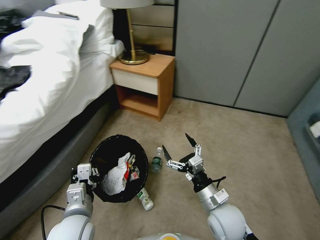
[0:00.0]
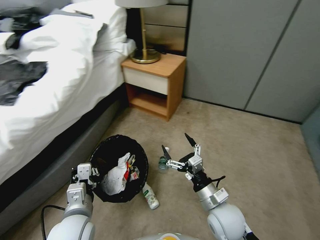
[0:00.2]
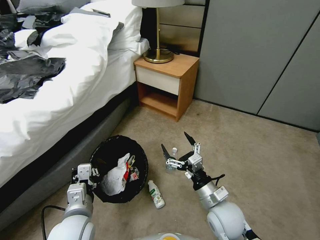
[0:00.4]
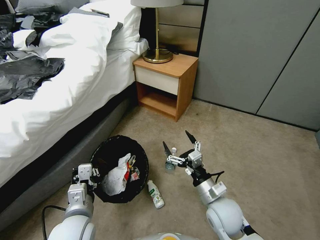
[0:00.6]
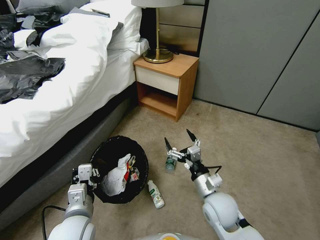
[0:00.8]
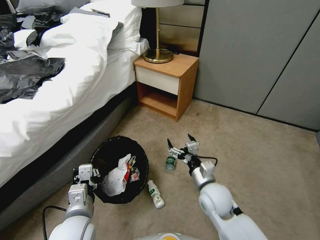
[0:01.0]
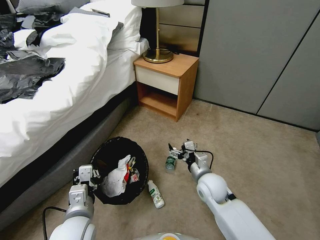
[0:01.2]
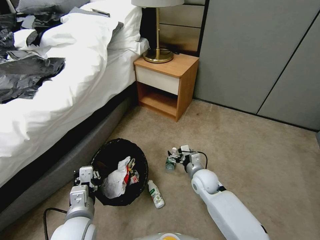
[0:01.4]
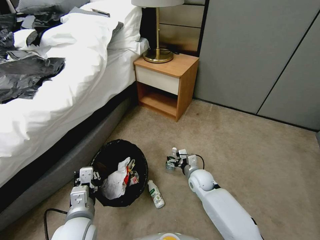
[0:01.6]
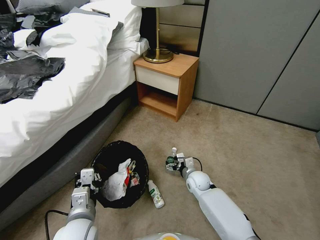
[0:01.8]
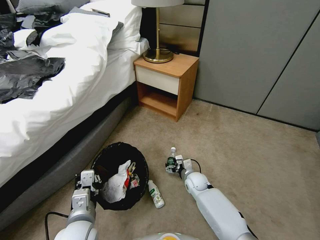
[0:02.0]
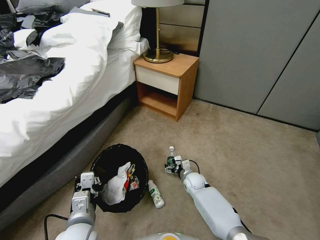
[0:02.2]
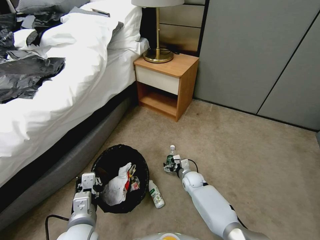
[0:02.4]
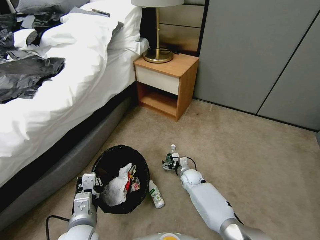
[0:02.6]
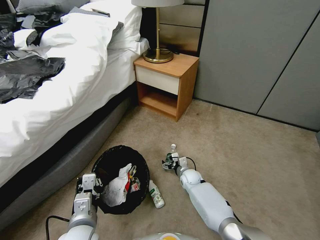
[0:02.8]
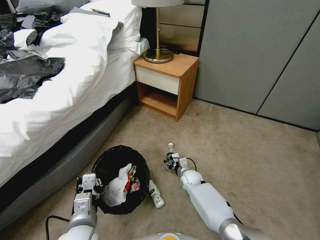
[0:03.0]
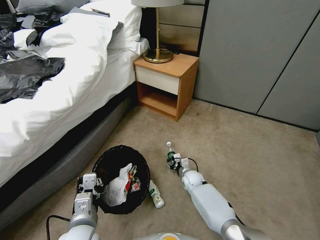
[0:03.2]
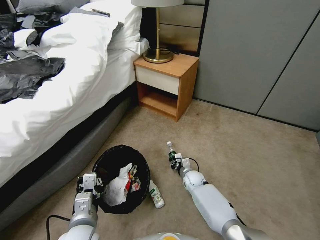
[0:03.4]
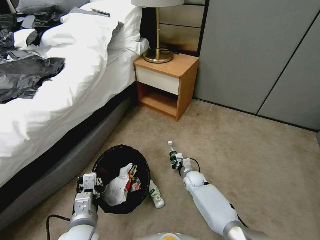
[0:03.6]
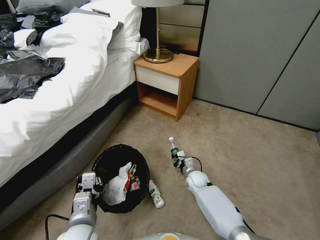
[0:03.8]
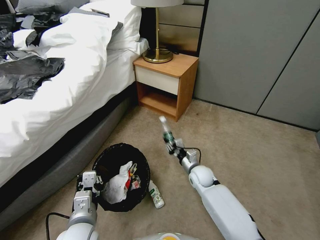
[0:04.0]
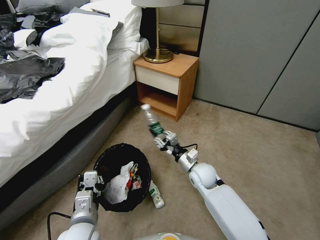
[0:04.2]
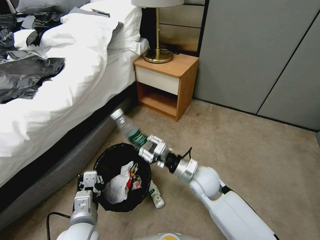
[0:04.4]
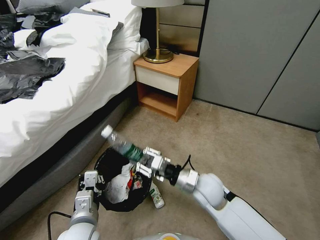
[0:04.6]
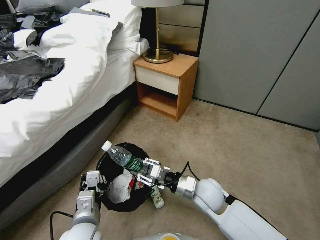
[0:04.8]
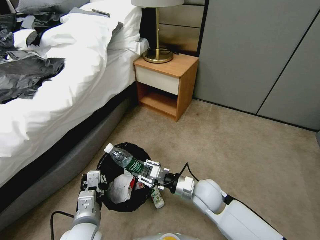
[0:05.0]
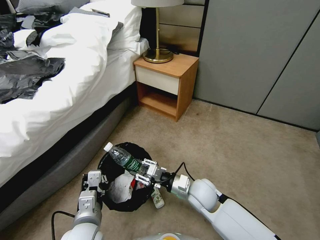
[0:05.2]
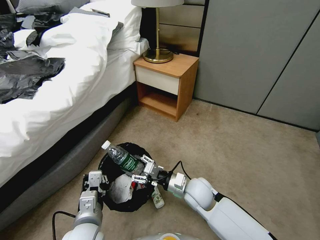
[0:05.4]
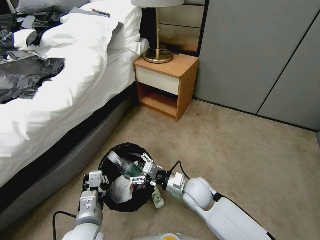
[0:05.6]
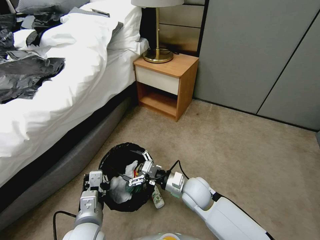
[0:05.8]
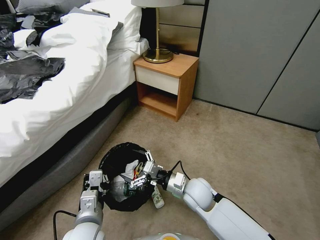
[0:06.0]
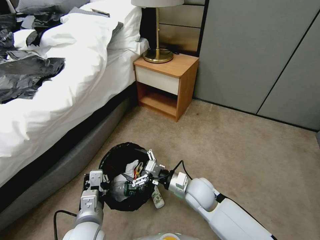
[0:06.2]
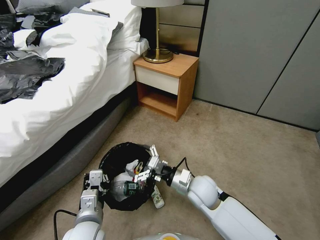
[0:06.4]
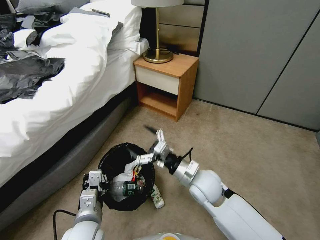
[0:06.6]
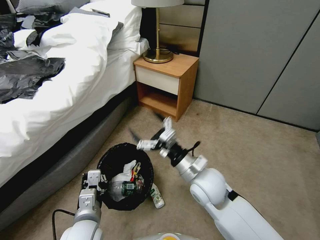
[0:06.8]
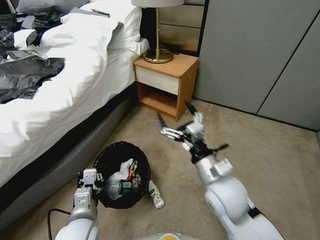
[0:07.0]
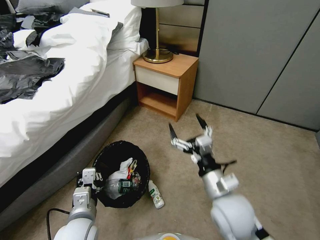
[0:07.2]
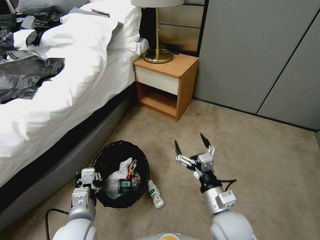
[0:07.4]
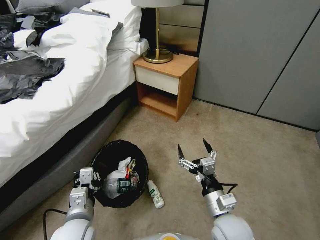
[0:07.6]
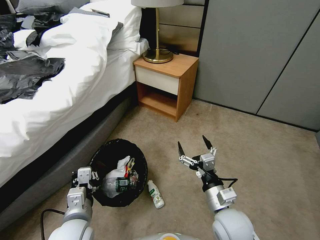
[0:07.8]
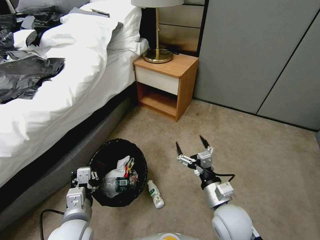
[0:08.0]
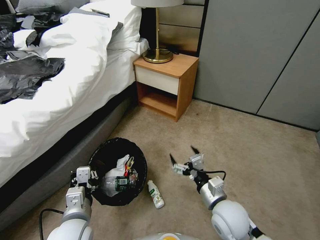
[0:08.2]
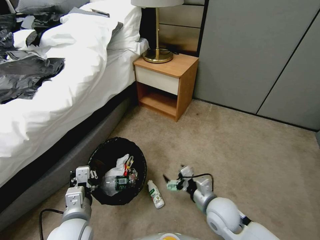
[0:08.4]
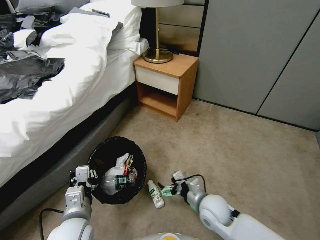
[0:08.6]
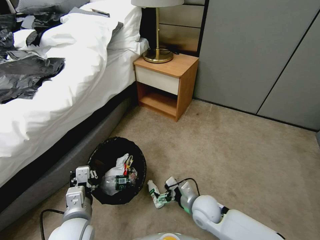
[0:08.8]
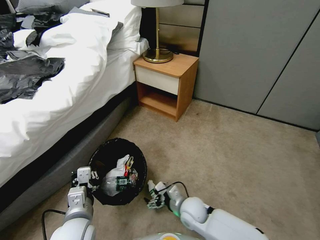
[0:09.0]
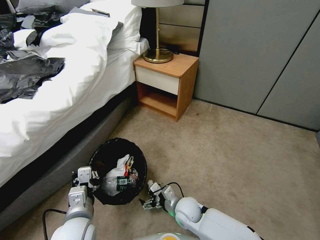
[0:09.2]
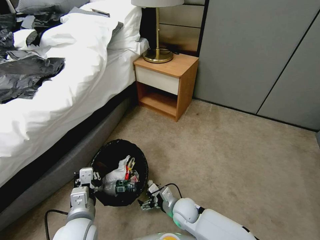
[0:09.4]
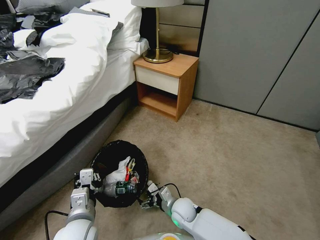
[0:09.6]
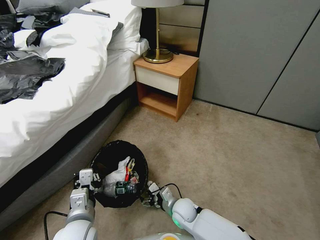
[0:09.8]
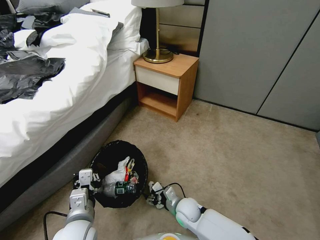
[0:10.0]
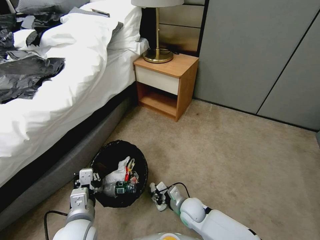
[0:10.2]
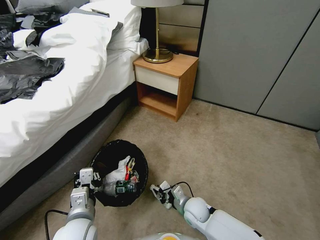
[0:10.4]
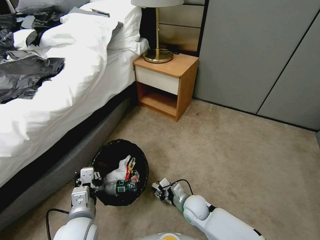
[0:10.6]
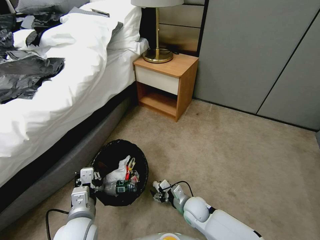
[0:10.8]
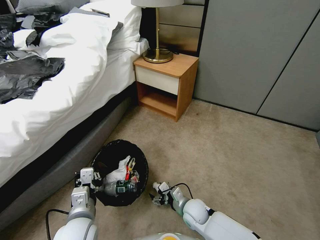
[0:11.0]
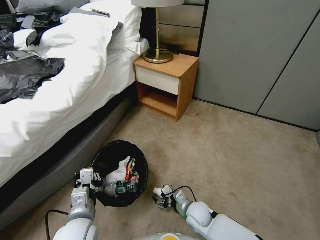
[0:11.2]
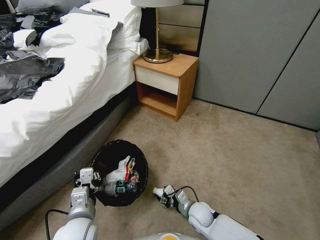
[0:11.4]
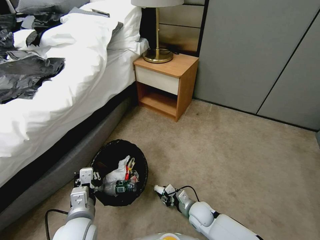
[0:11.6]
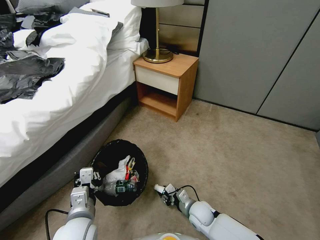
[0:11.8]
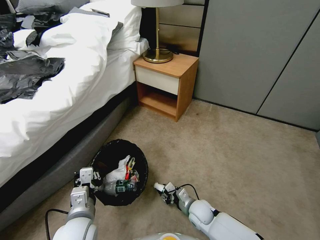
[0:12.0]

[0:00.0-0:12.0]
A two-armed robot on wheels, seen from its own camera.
Task of the whole recording: Pick up the trash bin, then pick up the garbage from the floor and place it into the trash bin.
0:00.0 to 0:01.6: The right gripper heads forward and downward, covering approximately 20 cm.
0:01.6 to 0:03.0: The right gripper is displaced downward by approximately 10 cm.
0:03.0 to 0:04.4: The right gripper travels upward by about 20 cm, and closes its fingers.
0:04.4 to 0:06.0: The right gripper ends up approximately 5 cm from where it was, and opens up.
0:06.0 to 0:07.6: The right gripper is displaced backward and to the right by roughly 15 cm, and travels upward and back again, some 15 cm each way.
0:07.6 to 0:09.0: The right gripper heads downward, forward and to the left, covering about 15 cm.
0:09.0 to 0:10.4: The right gripper closes up.
0:10.4 to 0:12.0: The right gripper opens and closes again.

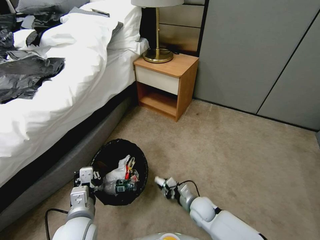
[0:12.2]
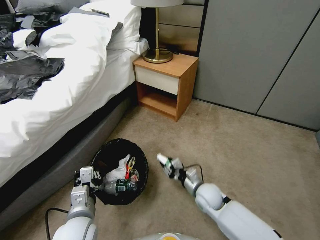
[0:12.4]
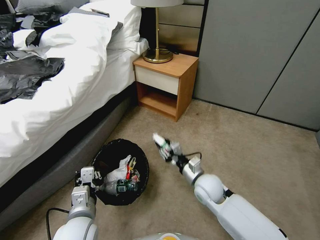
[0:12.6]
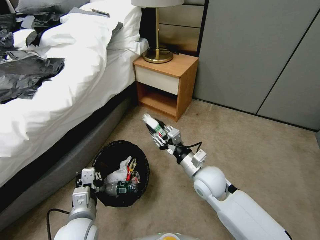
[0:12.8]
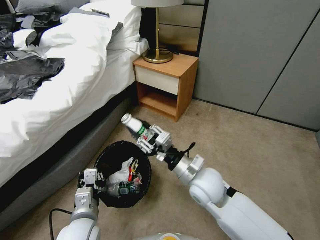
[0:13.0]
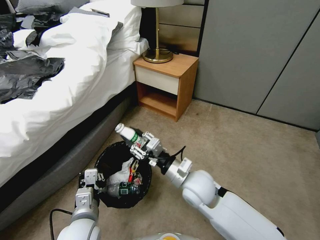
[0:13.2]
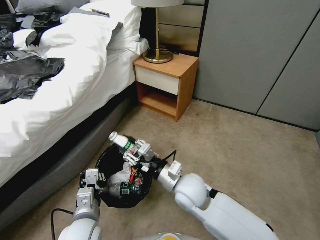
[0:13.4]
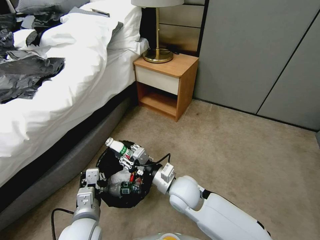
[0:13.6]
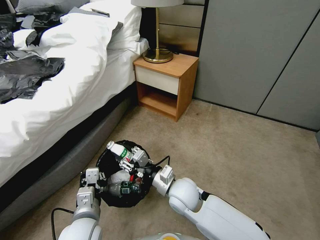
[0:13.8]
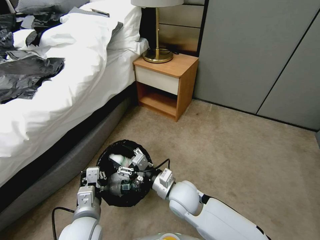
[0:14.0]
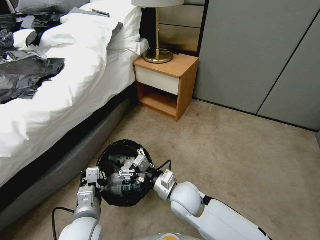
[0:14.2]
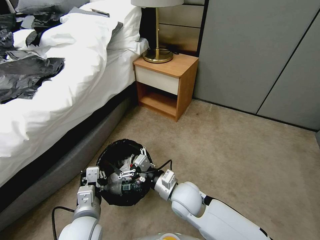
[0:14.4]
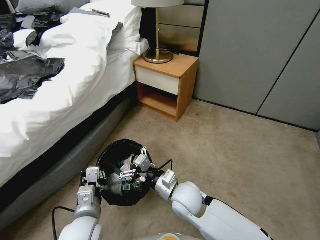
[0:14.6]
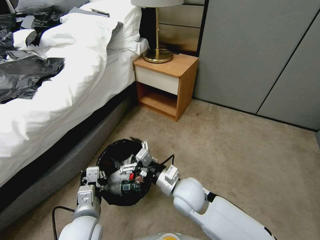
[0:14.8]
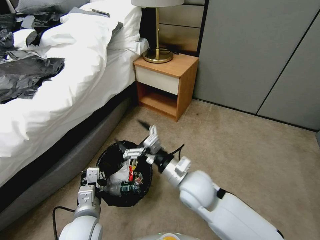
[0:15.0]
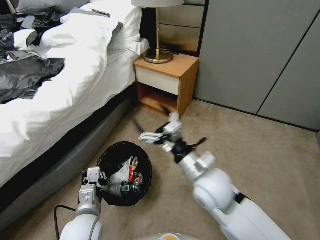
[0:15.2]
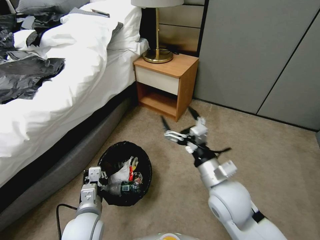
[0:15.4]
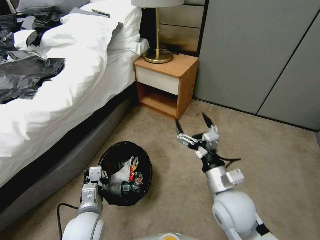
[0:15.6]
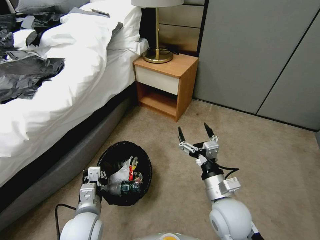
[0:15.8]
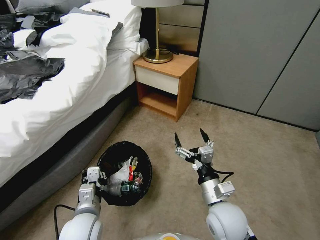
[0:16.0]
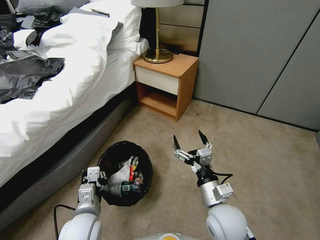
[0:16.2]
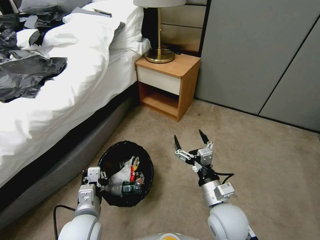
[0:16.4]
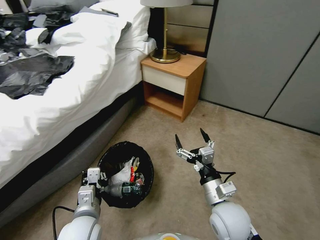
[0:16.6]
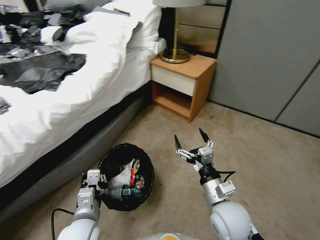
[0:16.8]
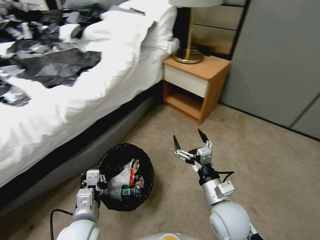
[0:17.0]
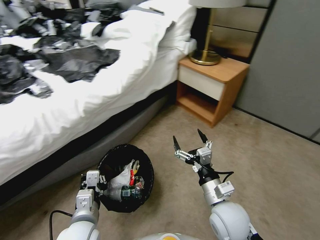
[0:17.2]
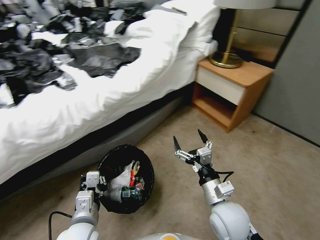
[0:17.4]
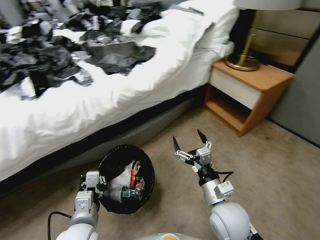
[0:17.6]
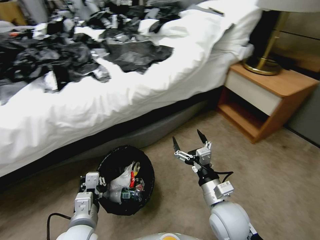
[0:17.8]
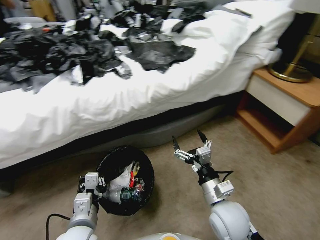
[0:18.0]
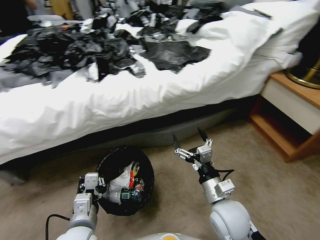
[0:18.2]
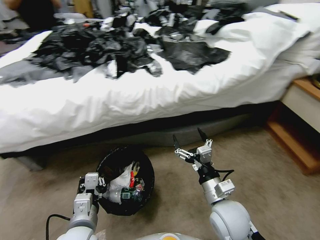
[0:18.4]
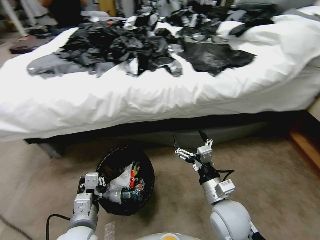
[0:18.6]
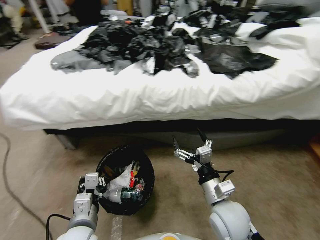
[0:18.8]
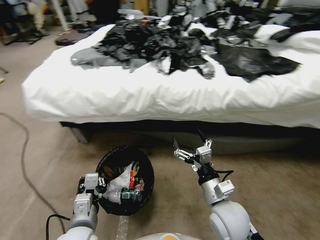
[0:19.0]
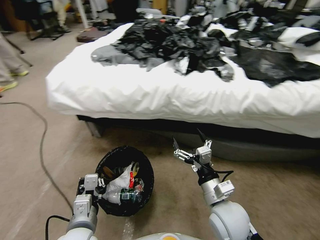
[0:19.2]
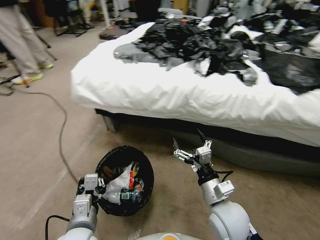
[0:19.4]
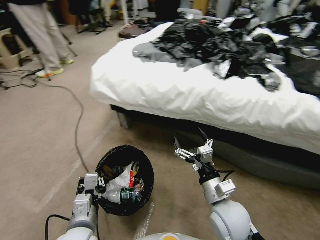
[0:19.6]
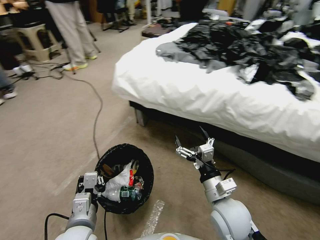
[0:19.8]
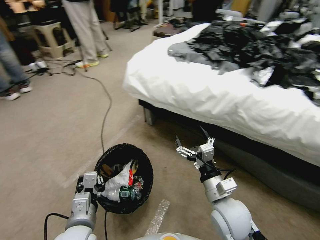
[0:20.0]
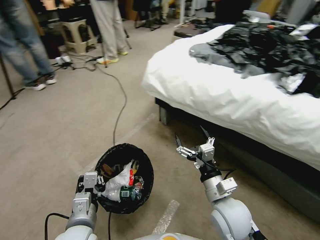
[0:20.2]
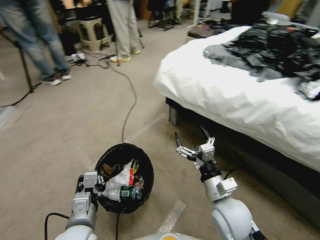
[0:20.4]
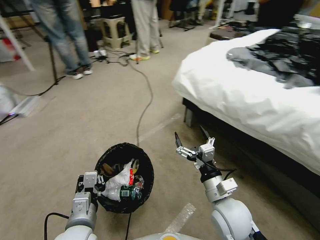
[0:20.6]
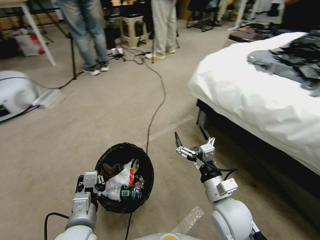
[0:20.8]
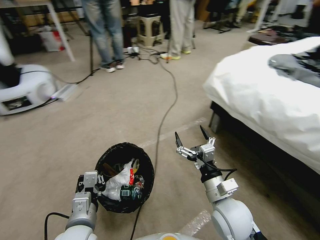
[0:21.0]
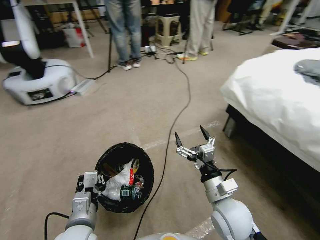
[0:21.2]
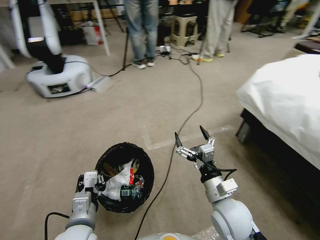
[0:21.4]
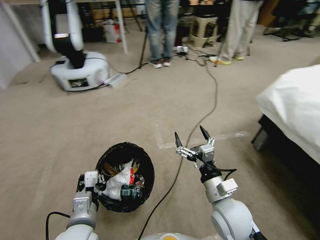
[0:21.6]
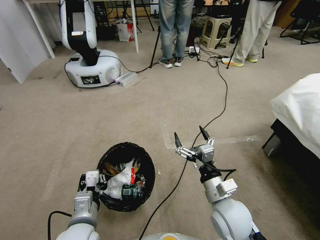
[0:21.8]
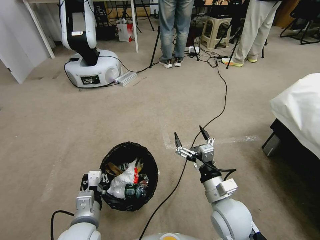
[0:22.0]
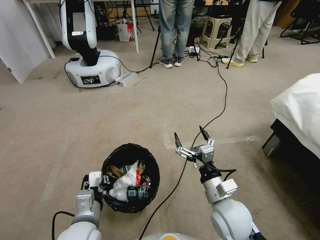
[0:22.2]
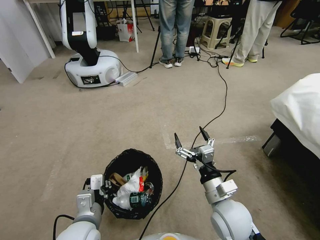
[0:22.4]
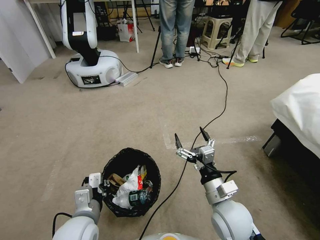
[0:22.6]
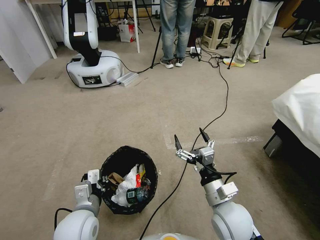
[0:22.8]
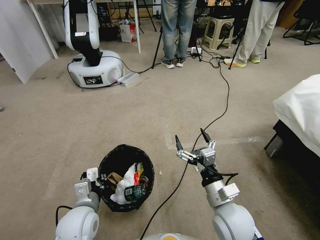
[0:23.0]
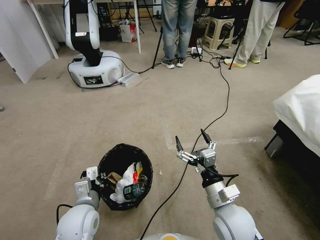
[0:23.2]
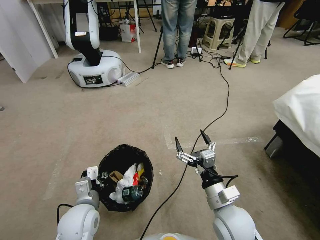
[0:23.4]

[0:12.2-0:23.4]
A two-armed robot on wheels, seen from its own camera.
Task of the whole recording: Pick up the trash bin, then pick up the garbage from the floor and place it into the trash bin.
0:12.2 to 0:13.8: The right gripper travels upward and to the left by some 20 cm.
0:13.8 to 0:15.4: The right gripper moves upward and to the right, approximately 15 cm, and opens.
0:15.4 to 0:17.0: The right gripper travels downward by approximately 10 cm.
0:21.8 to 0:23.4: The left gripper heads forward, covering some 5 cm.
